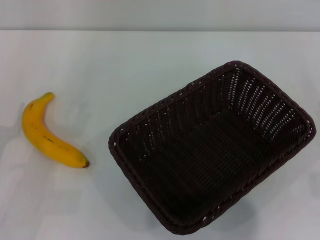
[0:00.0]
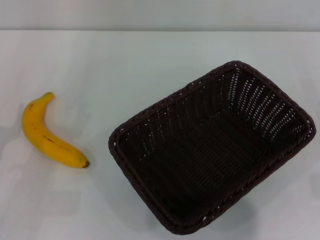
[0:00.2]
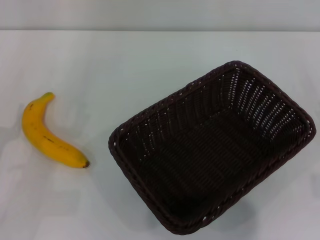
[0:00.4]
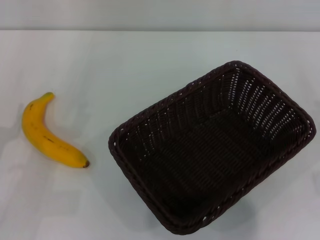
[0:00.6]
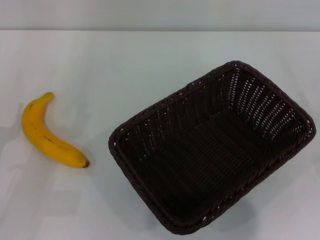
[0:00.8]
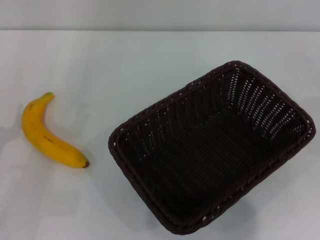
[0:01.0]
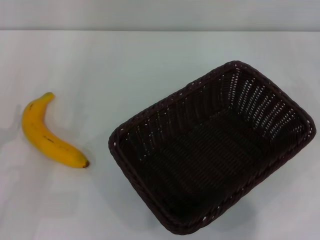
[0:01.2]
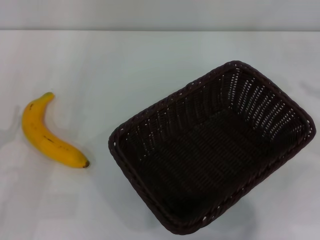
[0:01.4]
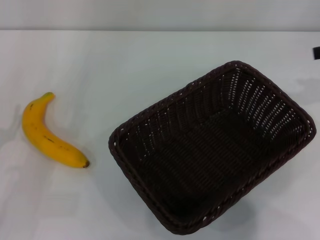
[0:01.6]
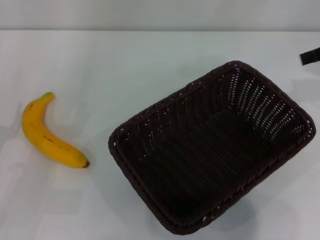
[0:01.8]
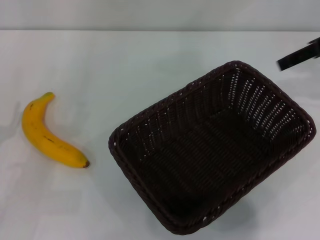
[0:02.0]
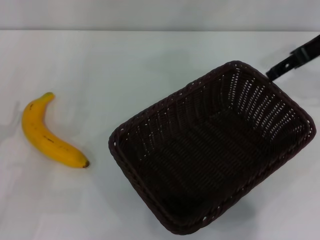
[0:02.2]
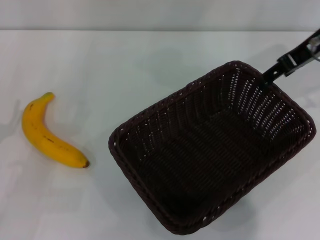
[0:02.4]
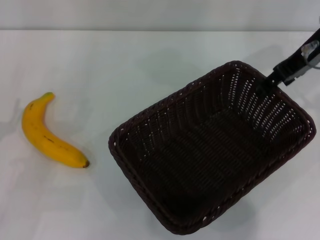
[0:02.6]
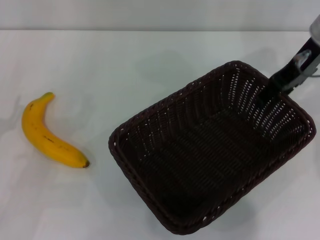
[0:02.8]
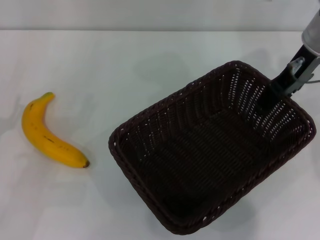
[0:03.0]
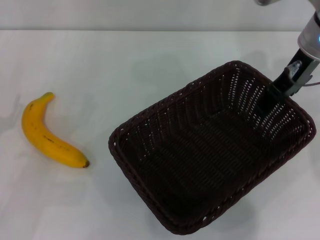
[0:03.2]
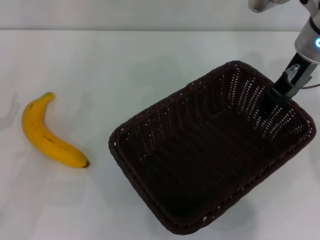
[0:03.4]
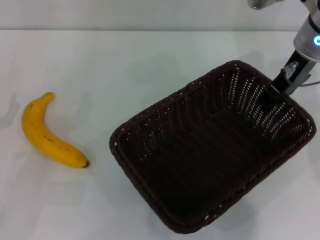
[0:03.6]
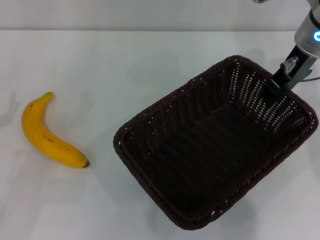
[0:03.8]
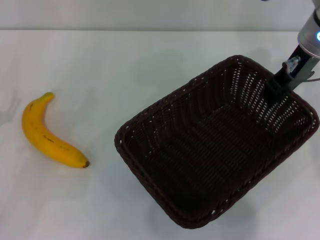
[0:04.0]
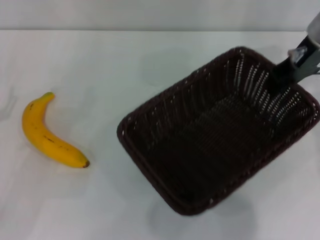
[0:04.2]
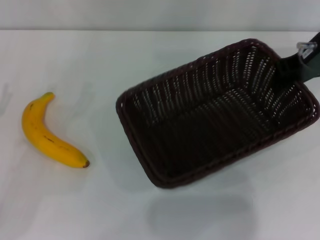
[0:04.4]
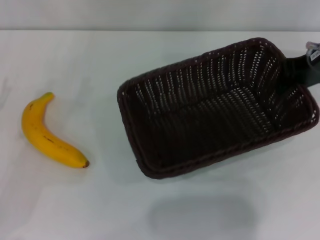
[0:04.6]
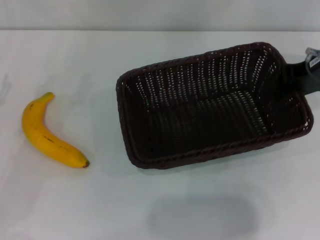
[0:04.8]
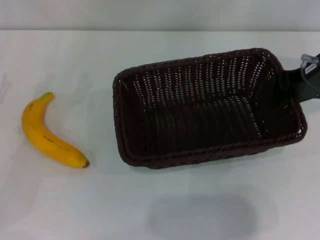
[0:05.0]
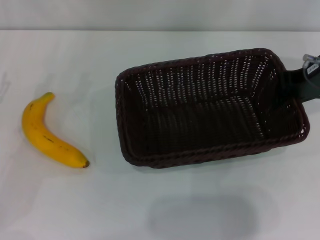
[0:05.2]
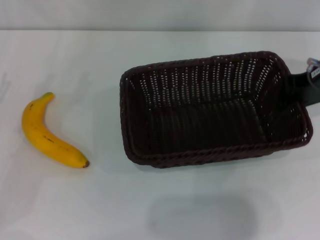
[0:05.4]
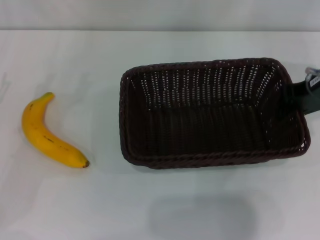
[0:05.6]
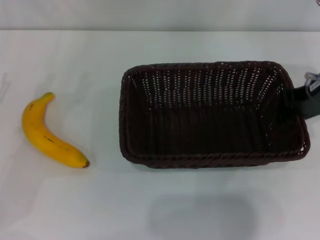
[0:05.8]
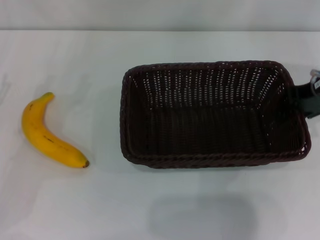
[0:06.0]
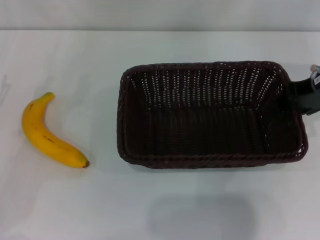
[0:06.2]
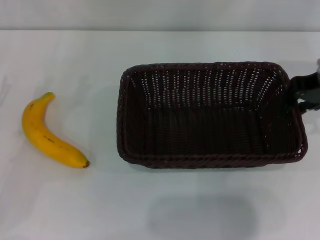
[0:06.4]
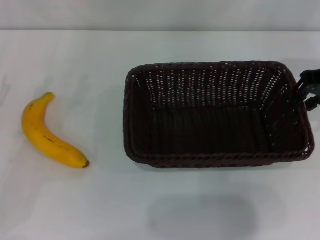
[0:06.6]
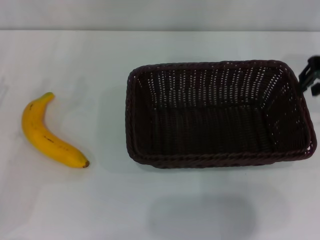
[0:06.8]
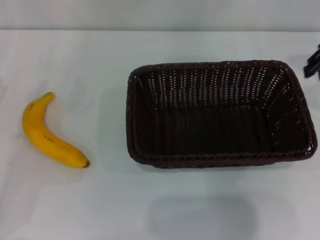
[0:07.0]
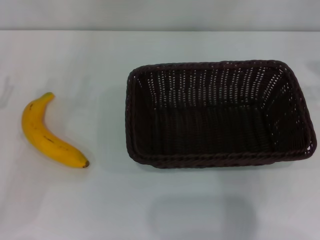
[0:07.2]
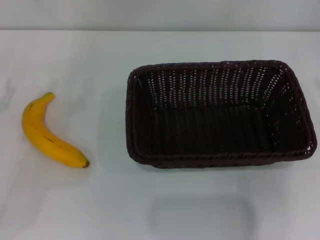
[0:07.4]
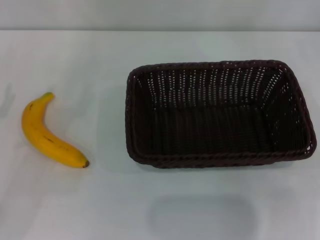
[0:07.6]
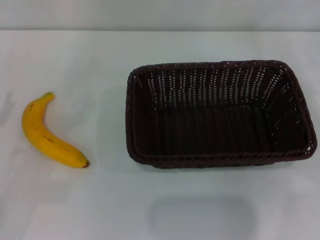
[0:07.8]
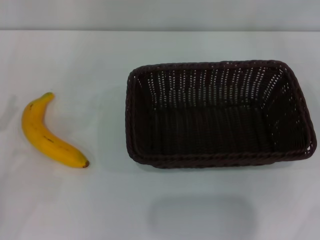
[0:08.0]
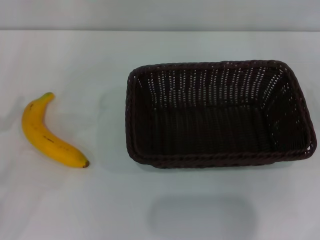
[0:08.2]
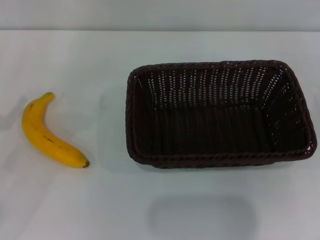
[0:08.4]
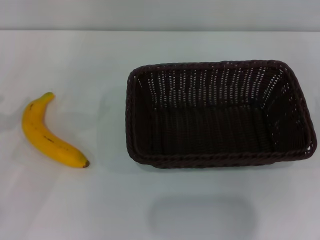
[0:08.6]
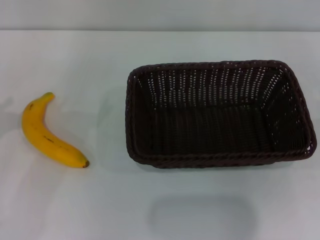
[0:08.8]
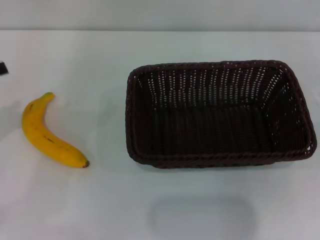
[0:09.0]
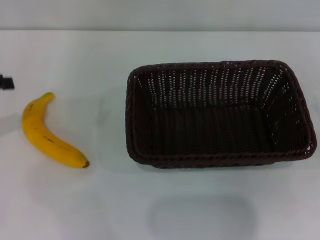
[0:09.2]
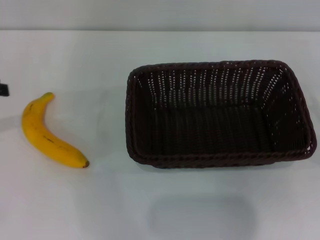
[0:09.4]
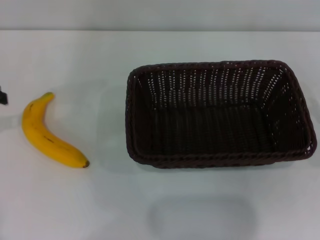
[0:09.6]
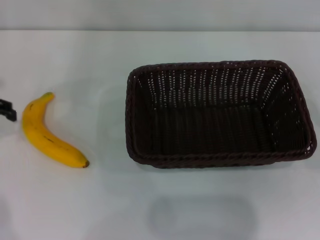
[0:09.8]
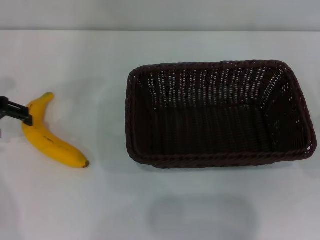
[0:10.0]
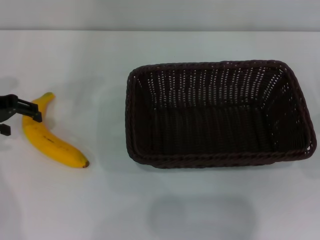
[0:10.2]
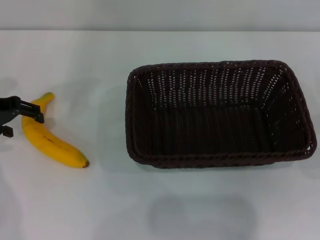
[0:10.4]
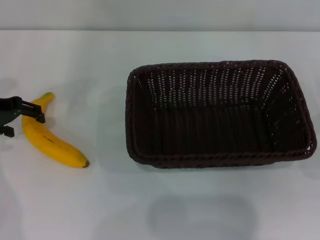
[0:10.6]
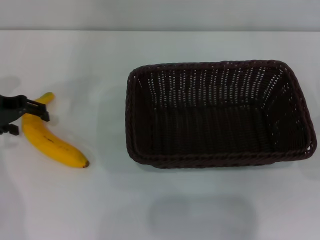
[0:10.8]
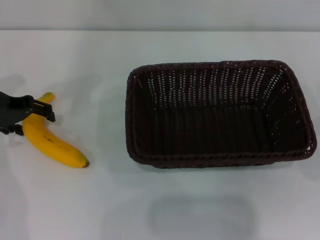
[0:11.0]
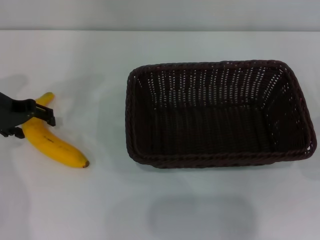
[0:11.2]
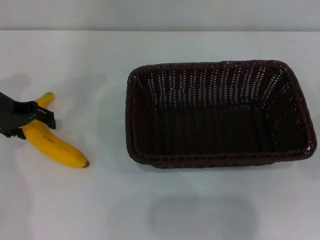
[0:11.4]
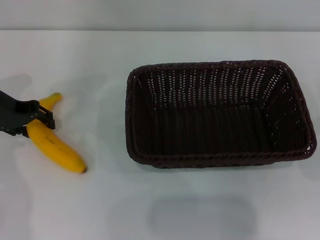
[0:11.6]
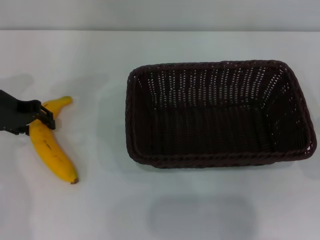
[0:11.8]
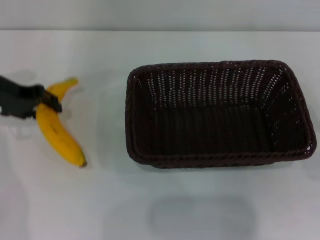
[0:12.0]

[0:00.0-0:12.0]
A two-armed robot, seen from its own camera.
Step, 0:00.0 to 0:04.0: Pick up the dark basket with the right gripper.
Step, 0:04.4 to 0:06.8: Place the dark basket in the center of view with the right gripper.
Step, 0:07.0 to 0:12.0: Pick up the banana with the left gripper.
0:01.6 to 0:03.0: The right gripper shifts roughly 15 cm to the left.
0:03.0 to 0:04.4: The right gripper closes up.
0:04.4 to 0:06.0: The grippers make only small movements.
0:06.0 to 0:07.6: The right gripper goes roughly 15 cm to the right.
0:09.0 to 0:10.4: The left gripper shifts some 10 cm forward.
0:10.4 to 0:12.0: The left gripper closes its fingers.

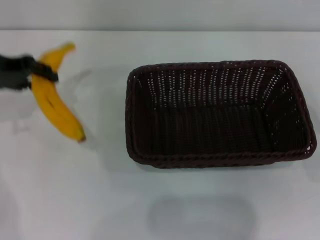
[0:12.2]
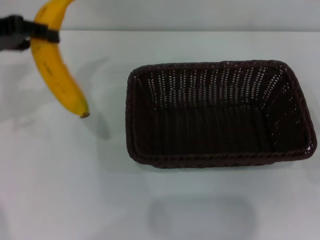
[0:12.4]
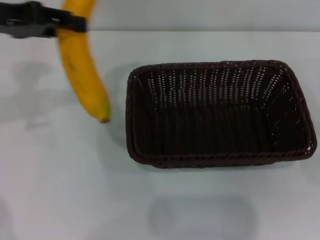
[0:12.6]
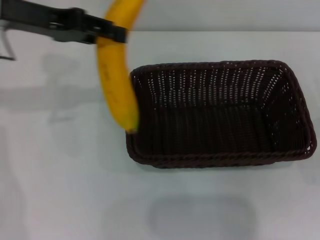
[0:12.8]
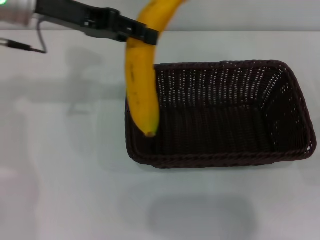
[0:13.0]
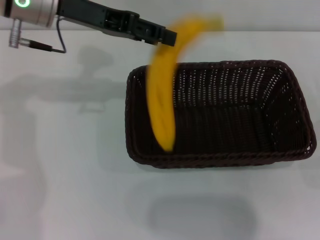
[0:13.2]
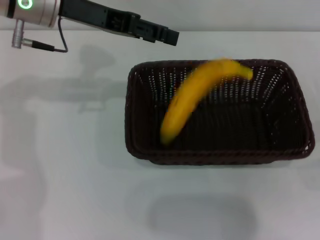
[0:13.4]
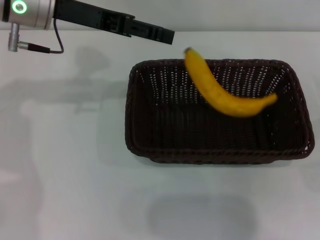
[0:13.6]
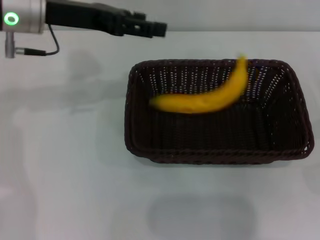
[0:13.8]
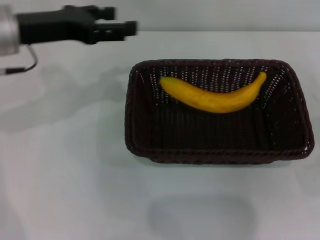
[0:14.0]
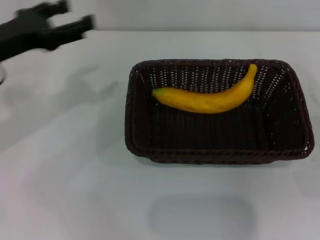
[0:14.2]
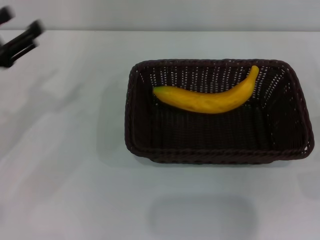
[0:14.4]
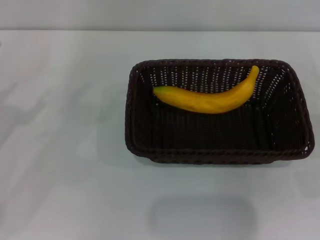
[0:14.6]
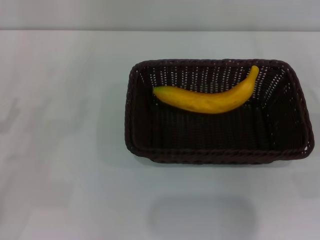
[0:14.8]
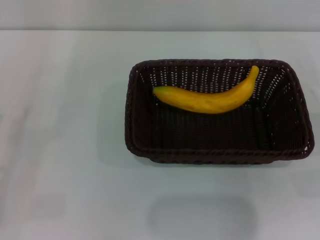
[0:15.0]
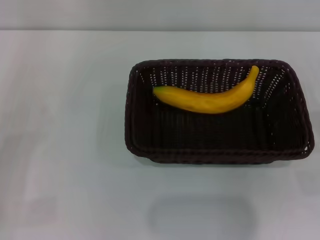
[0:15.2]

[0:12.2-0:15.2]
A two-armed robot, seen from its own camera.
Step, 0:12.2 to 0:13.2: Place the banana into the dark basket with the left gripper.
0:12.2 to 0:13.8: The left gripper goes roughly 10 cm to the right, and opens up.
0:13.8 to 0:15.2: The left gripper moves backward, downward and to the left, some 30 cm.

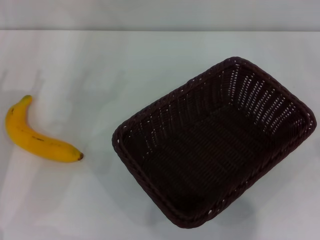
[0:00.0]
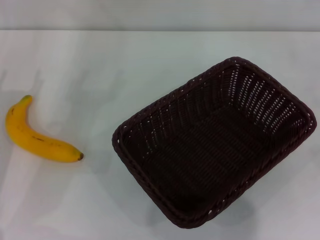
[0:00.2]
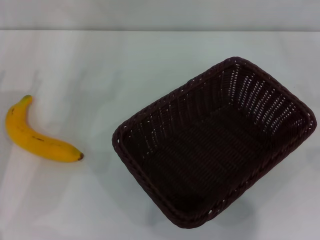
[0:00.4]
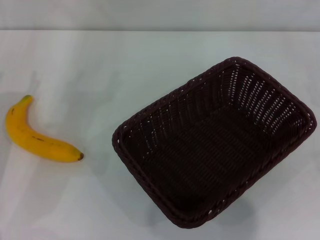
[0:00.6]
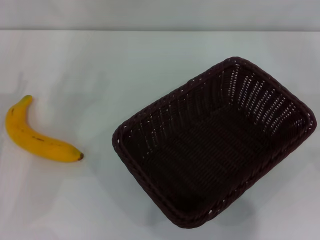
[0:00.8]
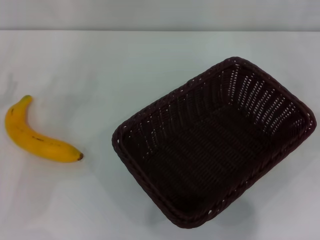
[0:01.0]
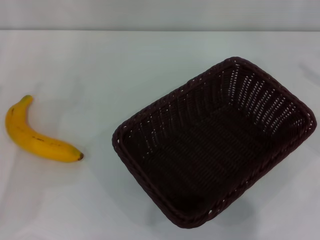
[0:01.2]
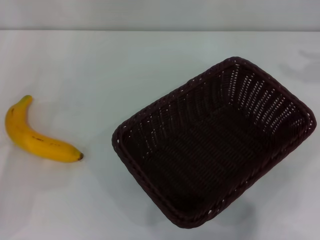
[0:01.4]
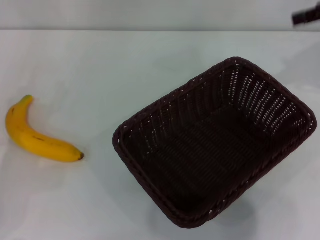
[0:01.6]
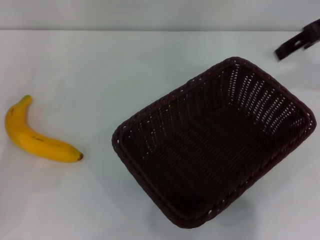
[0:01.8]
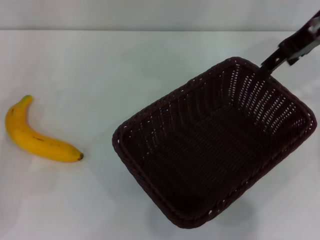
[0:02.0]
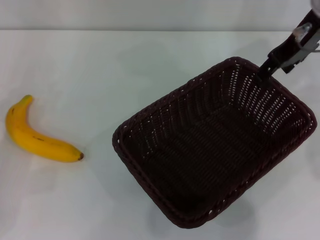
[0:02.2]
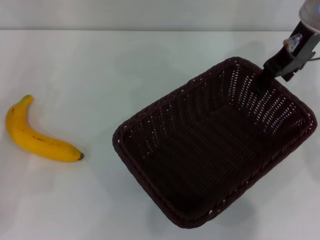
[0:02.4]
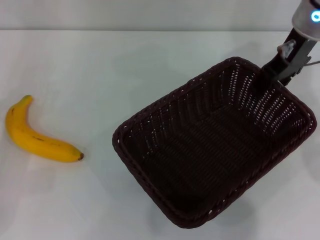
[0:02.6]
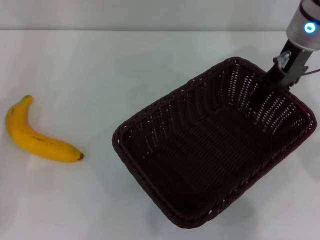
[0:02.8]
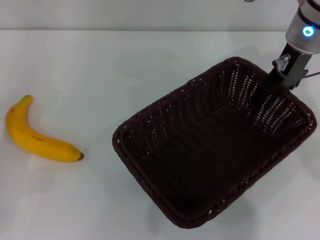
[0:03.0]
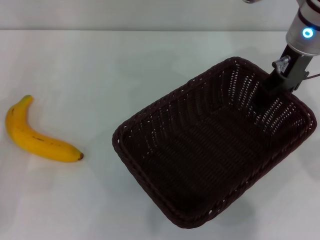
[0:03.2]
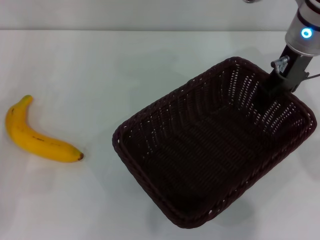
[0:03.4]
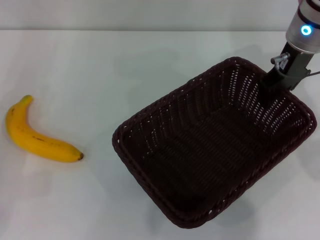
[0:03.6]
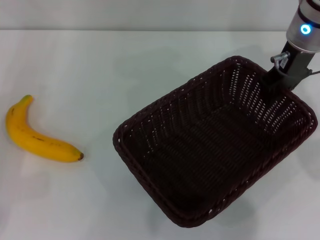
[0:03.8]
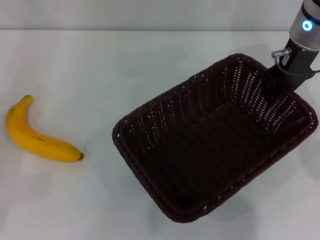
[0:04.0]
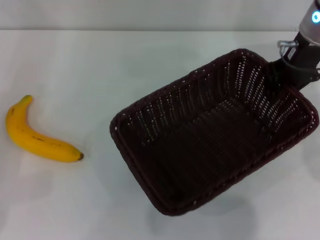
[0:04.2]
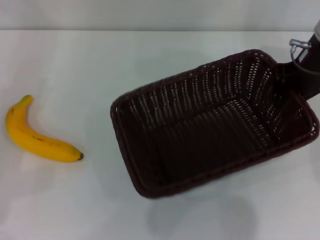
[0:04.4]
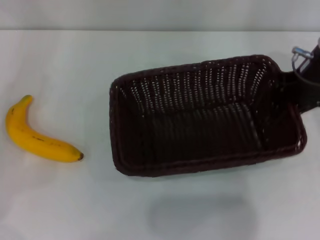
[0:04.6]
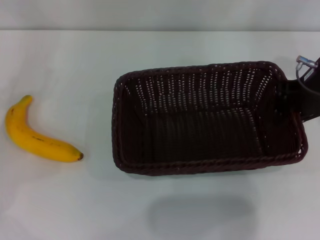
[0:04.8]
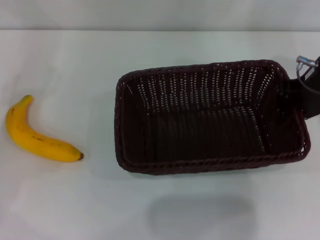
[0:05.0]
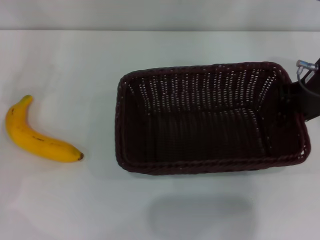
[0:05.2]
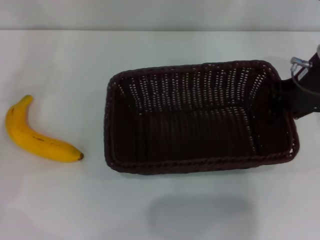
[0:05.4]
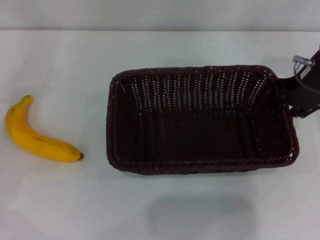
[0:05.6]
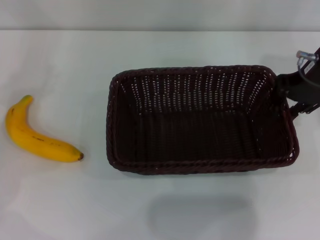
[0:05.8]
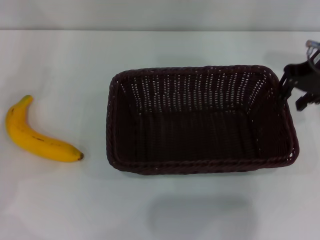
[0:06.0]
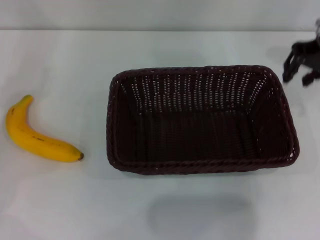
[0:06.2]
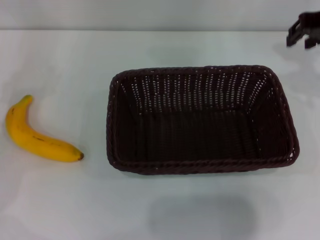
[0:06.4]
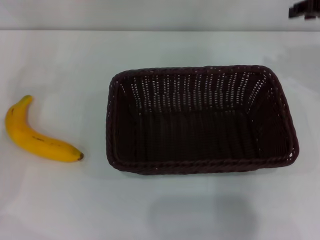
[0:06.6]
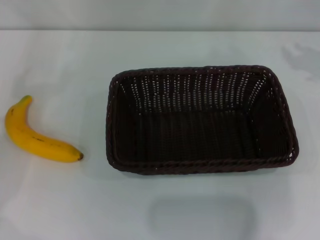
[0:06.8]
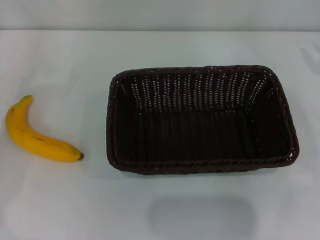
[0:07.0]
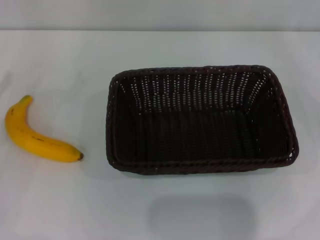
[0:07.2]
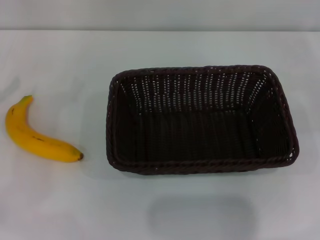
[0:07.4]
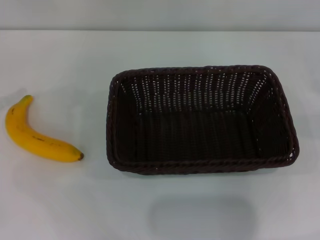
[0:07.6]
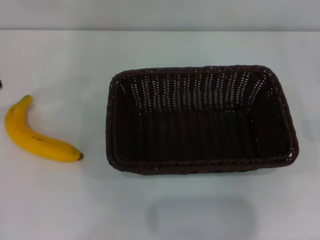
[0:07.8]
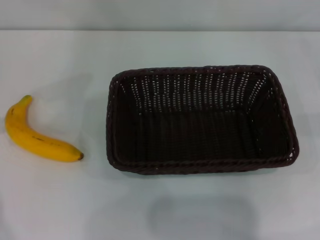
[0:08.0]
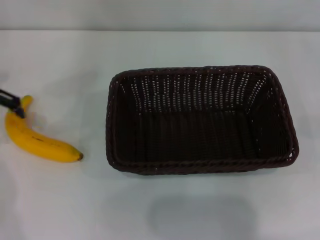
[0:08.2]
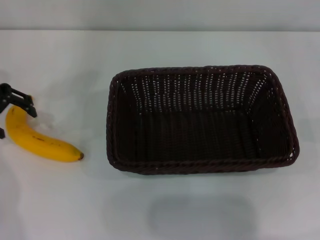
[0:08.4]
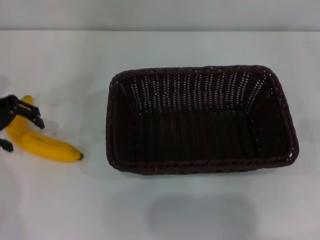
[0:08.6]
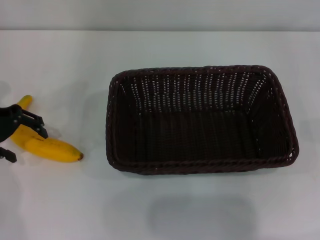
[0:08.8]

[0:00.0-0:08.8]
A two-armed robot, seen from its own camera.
Step, 0:00.0 to 0:03.8: Pick up the dark basket with the right gripper.
Step, 0:04.0 to 0:06.2: Place the dark basket in the center of view with the right gripper.
0:01.4 to 0:03.0: The right gripper travels to the left by roughly 20 cm.
0:03.0 to 0:04.4: The right gripper closes its fingers.
0:04.4 to 0:05.8: The grippers stay close to where they were, moving slightly.
0:05.8 to 0:07.4: The right gripper is displaced to the right and downward by roughly 25 cm.
0:07.4 to 0:08.8: The left gripper is displaced to the right and forward by about 10 cm.
